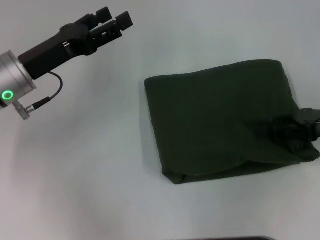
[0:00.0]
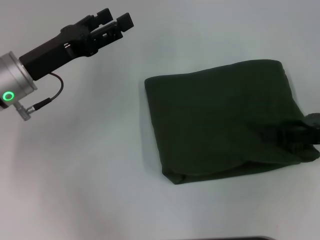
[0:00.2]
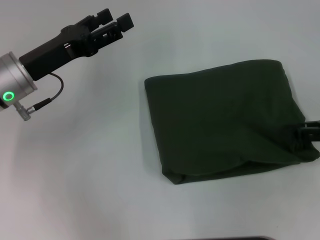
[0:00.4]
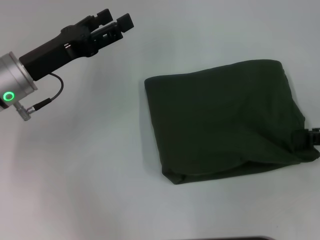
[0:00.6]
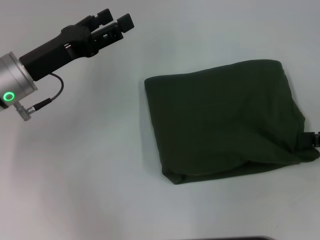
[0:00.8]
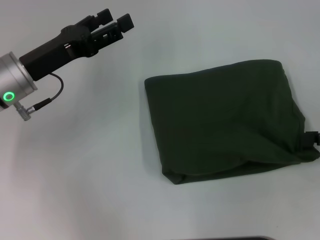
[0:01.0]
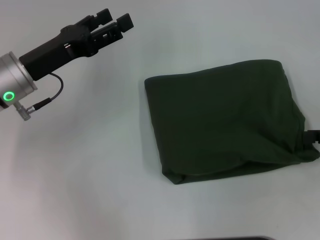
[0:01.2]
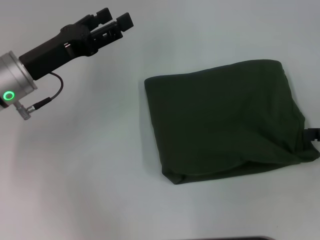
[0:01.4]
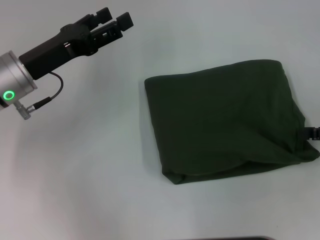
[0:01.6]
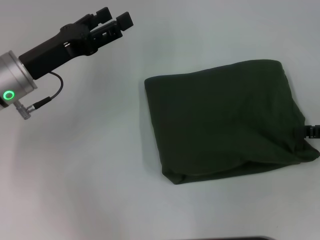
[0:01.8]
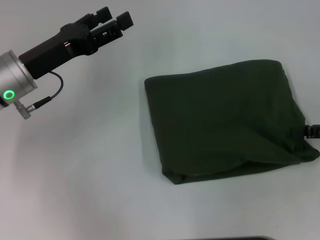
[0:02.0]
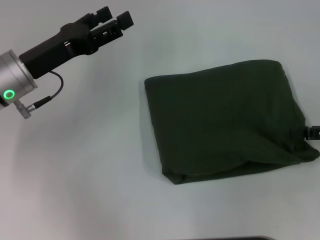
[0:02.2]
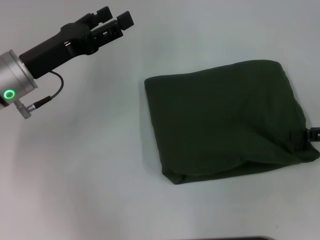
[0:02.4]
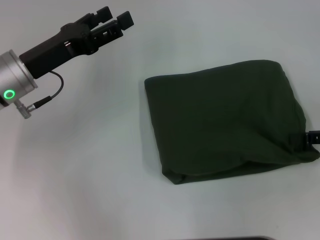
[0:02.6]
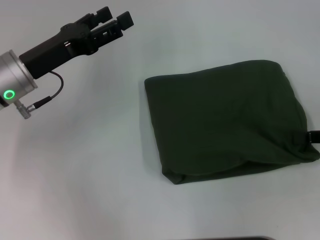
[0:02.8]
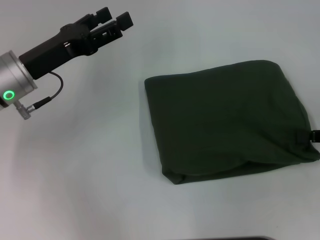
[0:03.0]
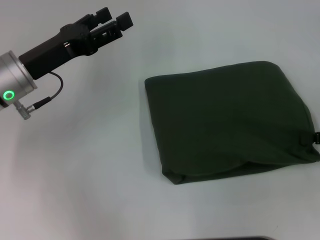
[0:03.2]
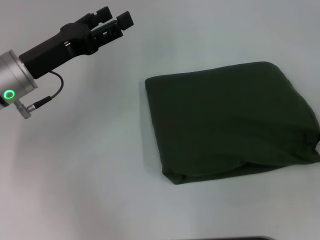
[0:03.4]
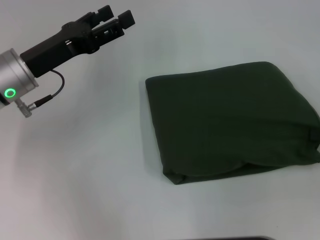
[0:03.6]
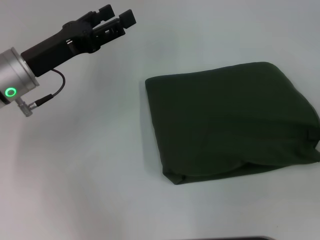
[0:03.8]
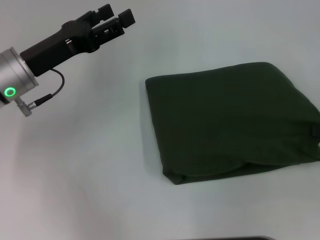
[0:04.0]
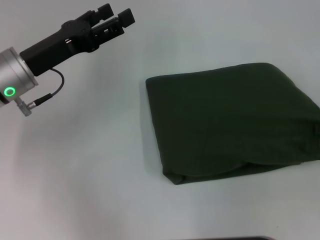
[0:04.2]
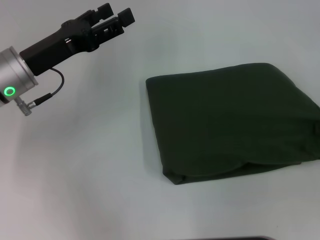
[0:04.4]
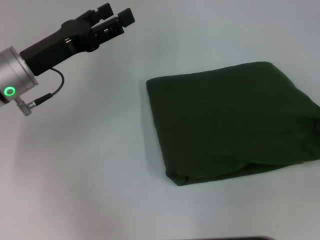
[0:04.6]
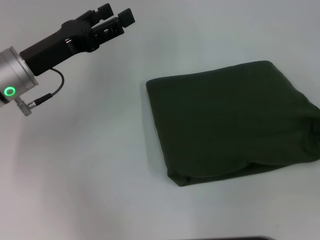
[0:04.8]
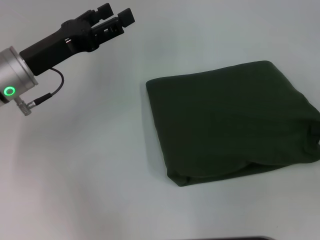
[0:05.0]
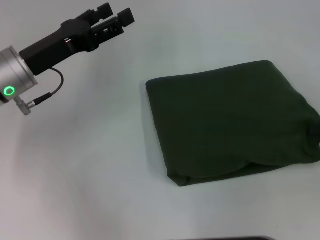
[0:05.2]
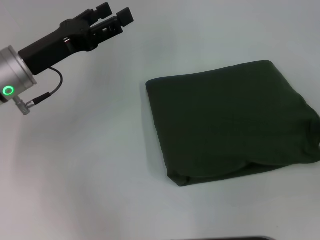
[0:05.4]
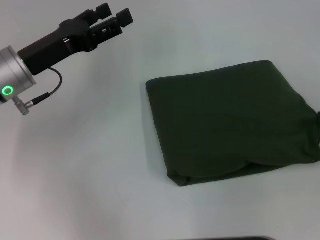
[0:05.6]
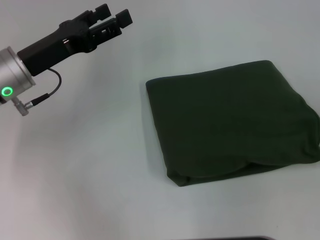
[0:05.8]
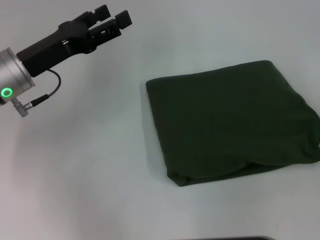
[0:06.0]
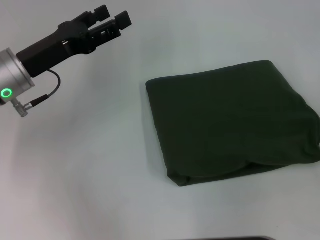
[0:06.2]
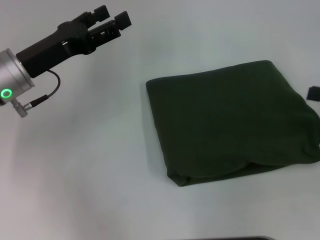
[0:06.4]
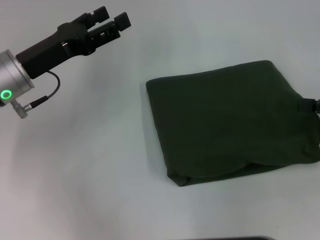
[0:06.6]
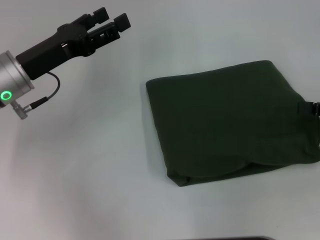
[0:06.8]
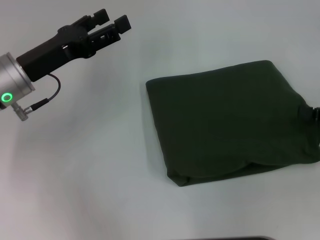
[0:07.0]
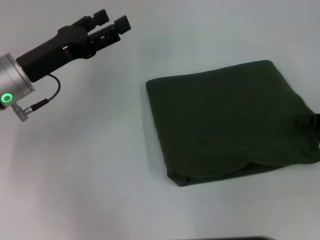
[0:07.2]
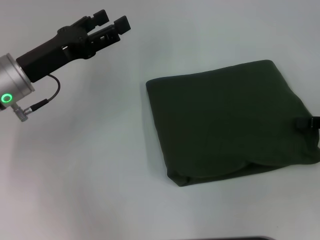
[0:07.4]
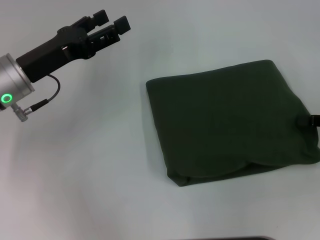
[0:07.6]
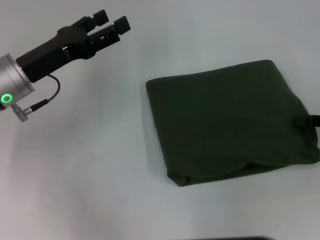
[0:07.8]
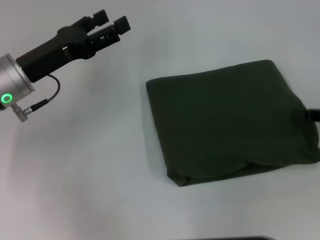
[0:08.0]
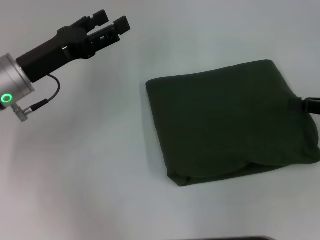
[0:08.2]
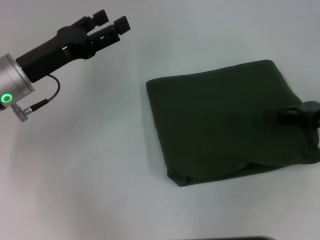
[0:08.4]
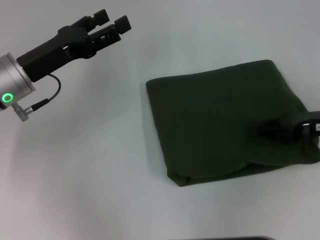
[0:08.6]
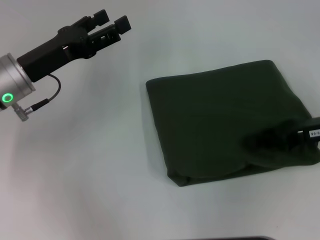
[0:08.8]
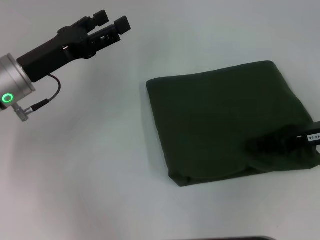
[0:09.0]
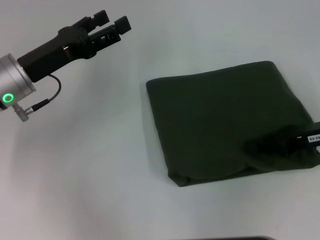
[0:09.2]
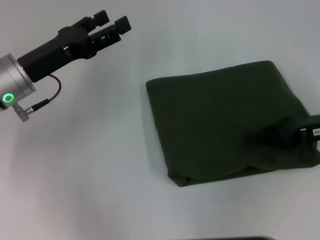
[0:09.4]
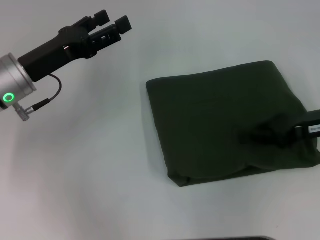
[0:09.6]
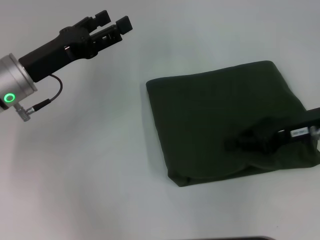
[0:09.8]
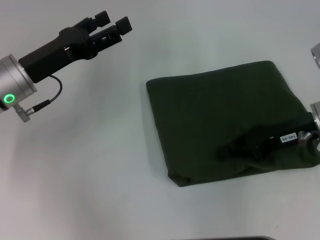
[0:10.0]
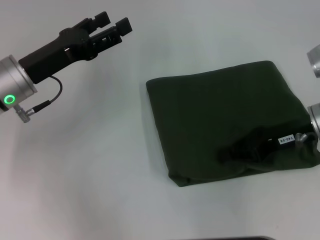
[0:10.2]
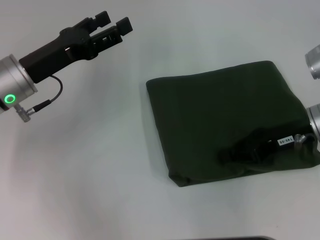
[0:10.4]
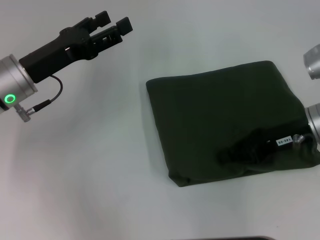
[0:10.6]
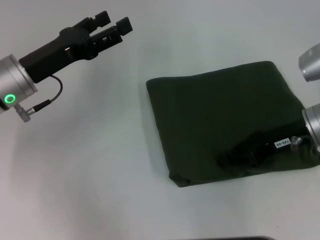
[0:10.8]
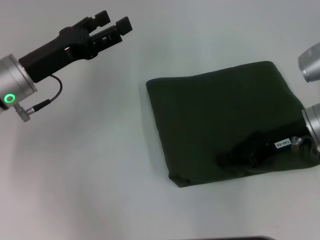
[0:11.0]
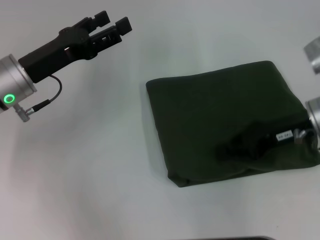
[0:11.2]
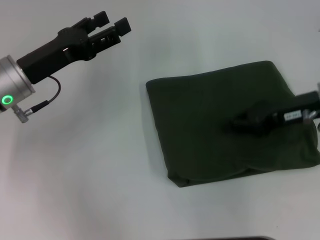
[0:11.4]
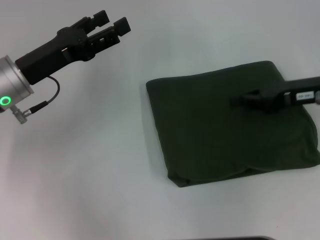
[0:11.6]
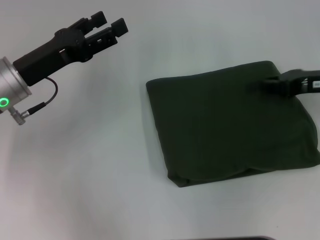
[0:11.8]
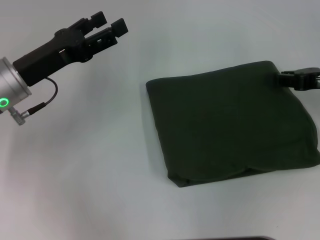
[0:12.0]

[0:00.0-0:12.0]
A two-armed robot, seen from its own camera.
0:00.0 to 0:01.6: The right gripper is displaced to the right by some 5 cm.
0:01.6 to 0:03.0: The right gripper closes its fingers.
0:03.0 to 0:04.4: The grippers move only a little.
0:04.4 to 0:06.0: The right gripper opens up.
0:06.0 to 0:07.6: The right gripper ends up some 5 cm from where it was, and closes.
0:07.6 to 0:09.0: The right gripper goes roughly 5 cm to the left.
0:09.0 to 0:10.4: The right gripper shifts by some 5 cm.
0:10.4 to 0:12.0: The right gripper shifts approximately 10 cm to the right.

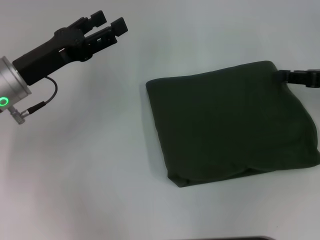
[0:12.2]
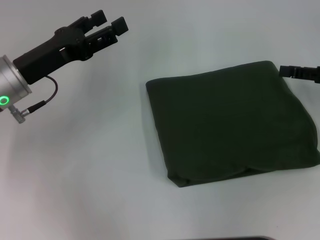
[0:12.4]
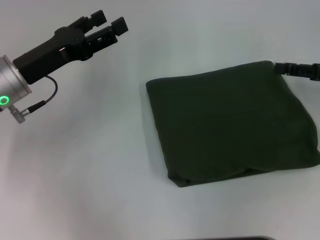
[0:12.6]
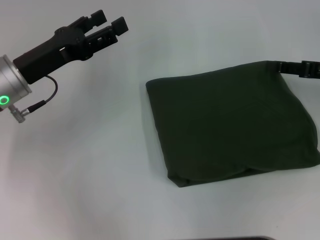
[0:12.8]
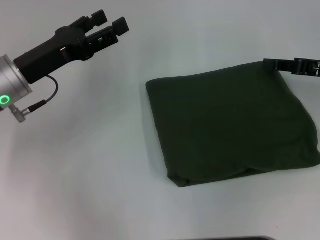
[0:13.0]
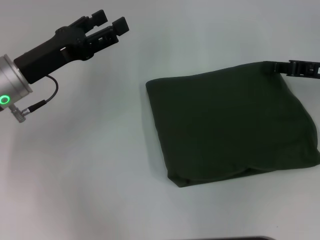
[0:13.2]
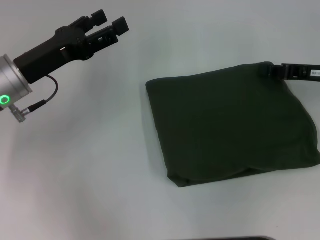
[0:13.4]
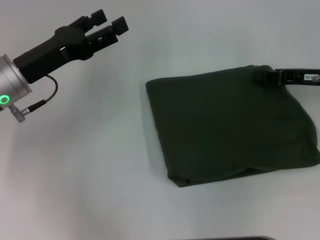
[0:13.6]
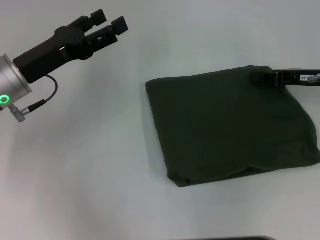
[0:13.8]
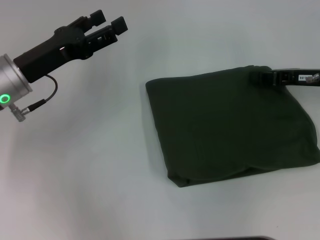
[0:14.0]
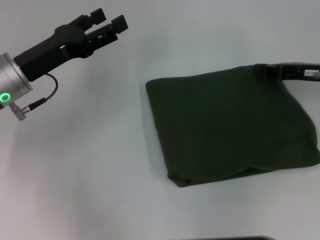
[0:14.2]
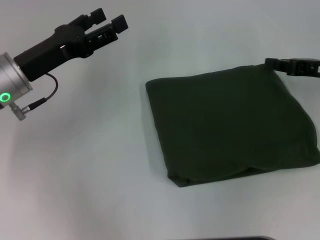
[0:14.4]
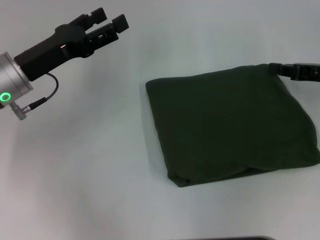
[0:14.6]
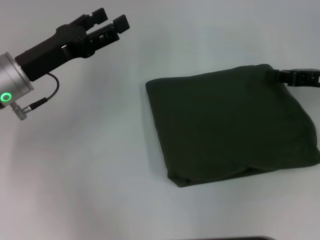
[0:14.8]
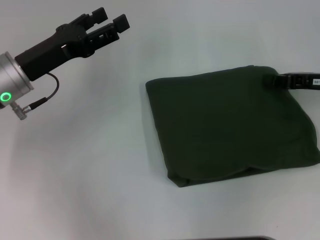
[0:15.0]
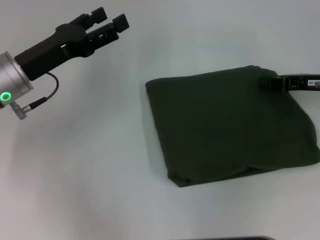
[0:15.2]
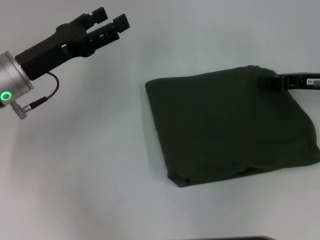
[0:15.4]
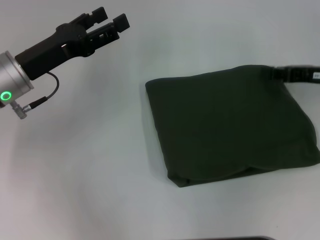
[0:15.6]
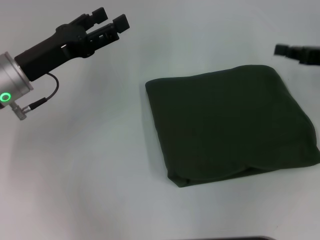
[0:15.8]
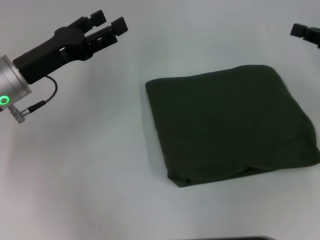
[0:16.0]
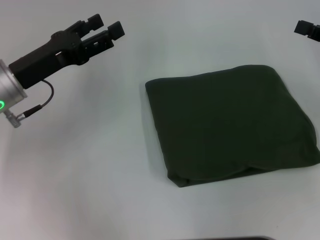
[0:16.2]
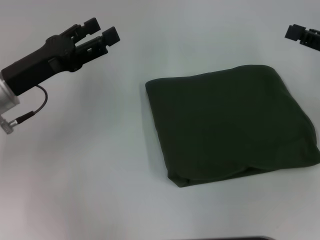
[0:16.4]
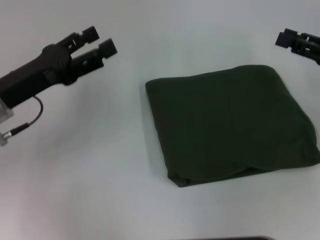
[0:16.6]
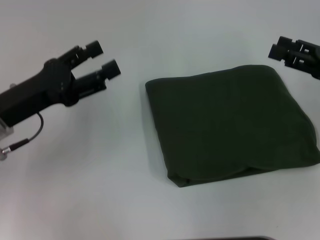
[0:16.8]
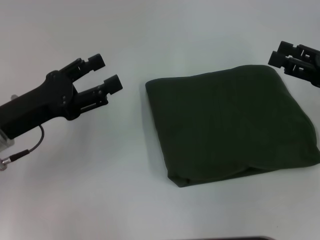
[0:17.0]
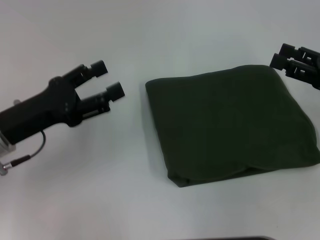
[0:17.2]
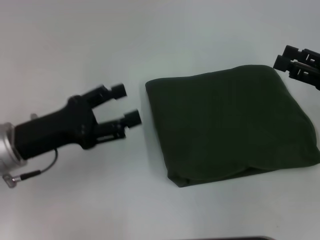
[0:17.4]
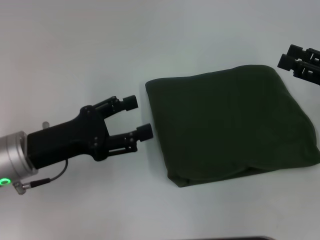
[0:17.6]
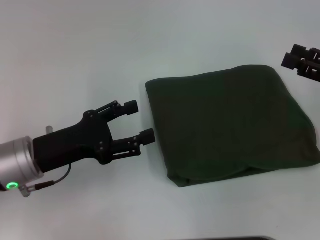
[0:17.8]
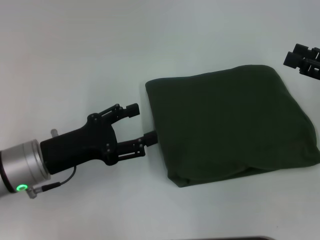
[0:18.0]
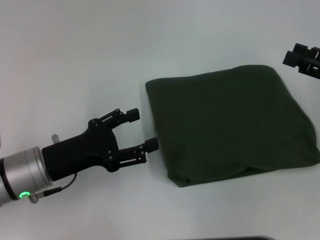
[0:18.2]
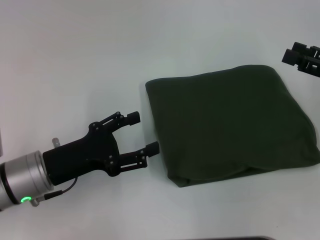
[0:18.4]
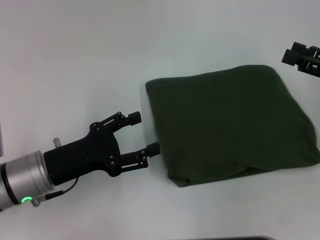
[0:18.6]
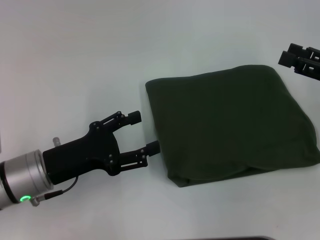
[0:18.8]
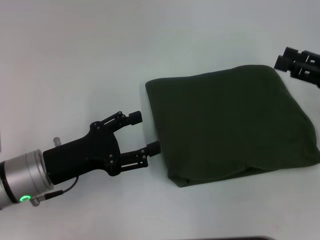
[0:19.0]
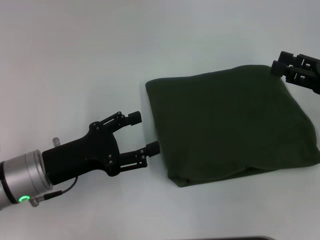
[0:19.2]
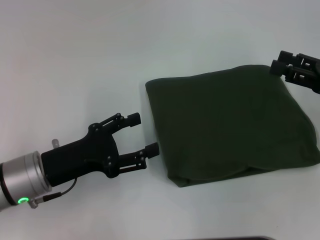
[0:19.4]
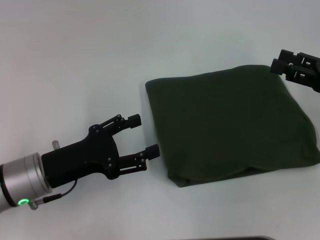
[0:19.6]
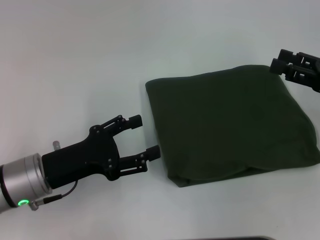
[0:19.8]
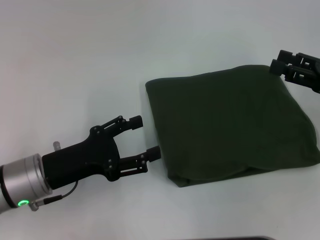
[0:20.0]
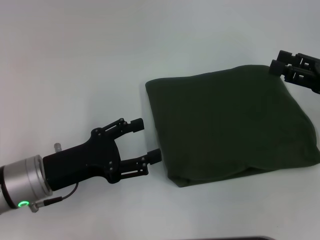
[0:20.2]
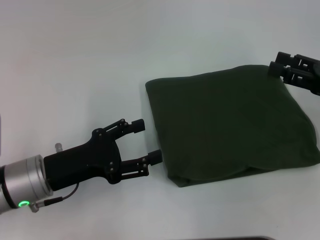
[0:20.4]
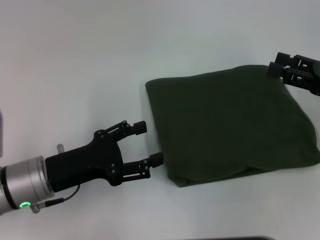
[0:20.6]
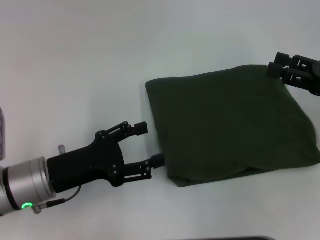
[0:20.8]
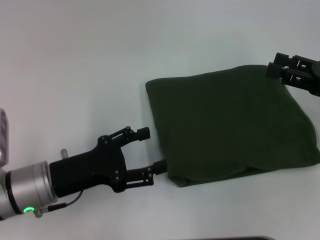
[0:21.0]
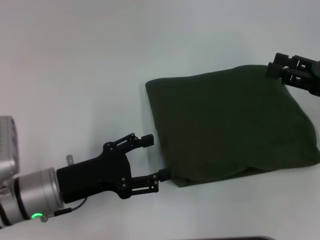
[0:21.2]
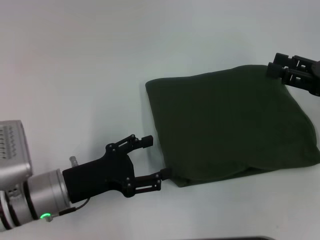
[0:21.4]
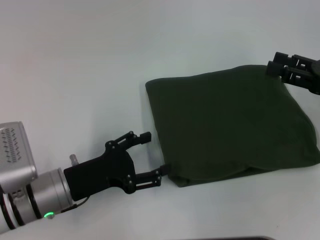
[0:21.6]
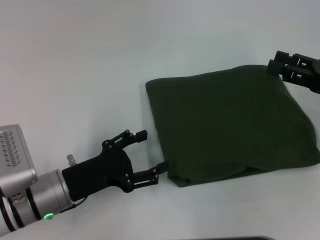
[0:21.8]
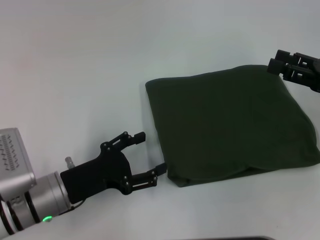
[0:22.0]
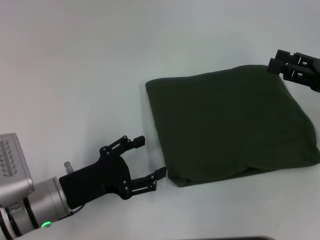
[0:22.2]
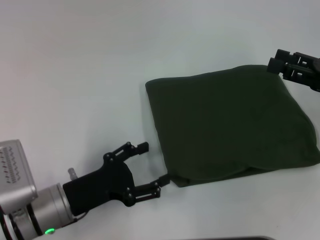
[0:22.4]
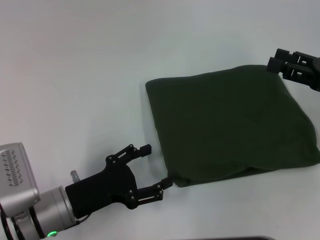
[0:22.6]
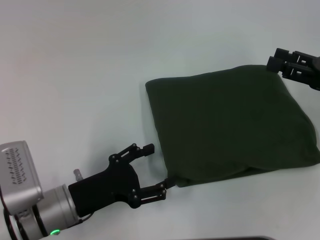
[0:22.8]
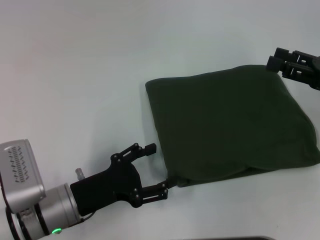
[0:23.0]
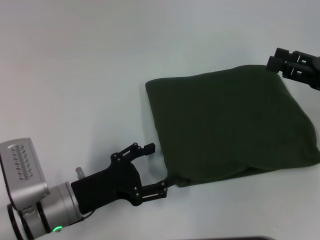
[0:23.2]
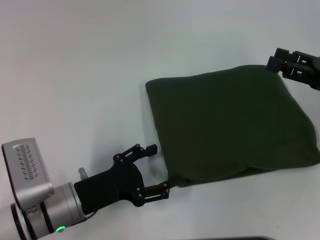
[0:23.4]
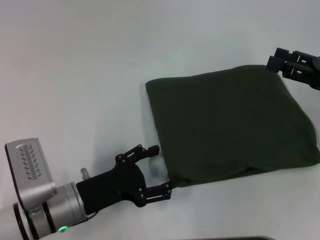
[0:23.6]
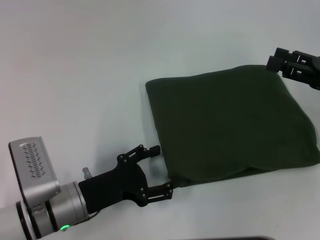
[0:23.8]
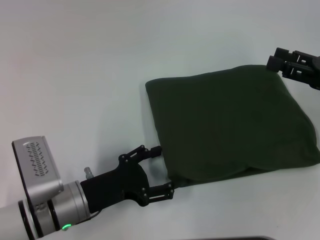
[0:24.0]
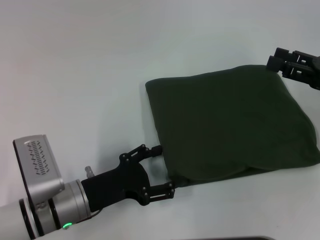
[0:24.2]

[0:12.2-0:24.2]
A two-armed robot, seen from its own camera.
0:12.2 to 0:13.8: The right gripper ends up about 5 cm from where it was, and opens, then closes again.
0:13.8 to 0:15.2: There are only small adjustments of the grippers.
0:15.2 to 0:16.6: The right gripper shifts by approximately 5 cm, and opens up.
0:16.6 to 0:18.2: The left gripper shifts approximately 10 cm backward and downward. Meanwhile the right gripper opens up.
0:18.2 to 0:19.8: Neither gripper changes place.
0:19.8 to 0:22.6: The grippers move only a little.
0:22.6 to 0:24.2: The grippers make only small movements.
